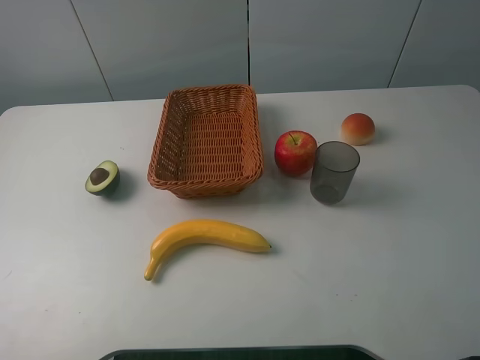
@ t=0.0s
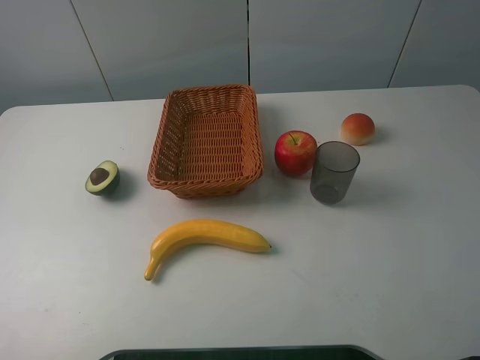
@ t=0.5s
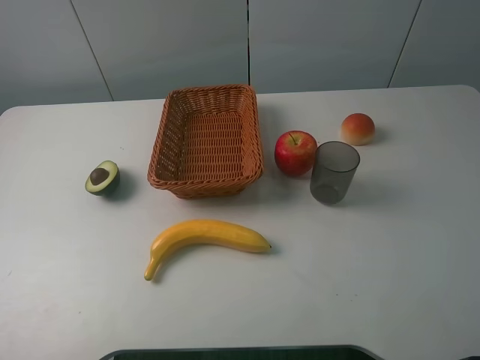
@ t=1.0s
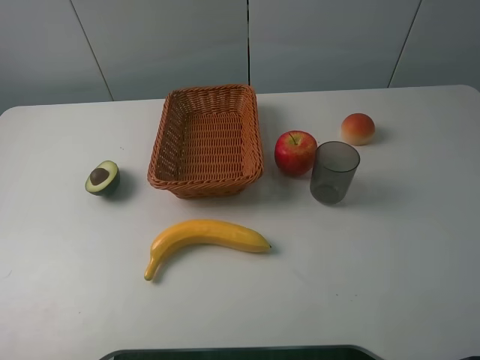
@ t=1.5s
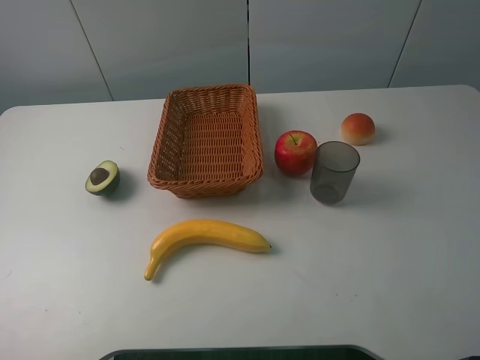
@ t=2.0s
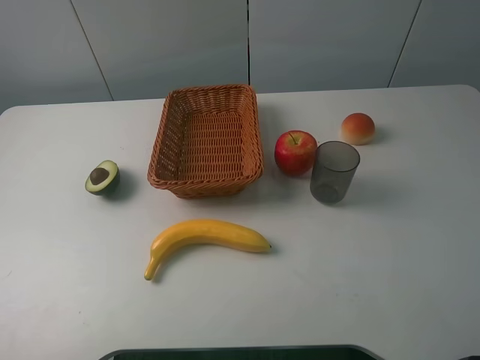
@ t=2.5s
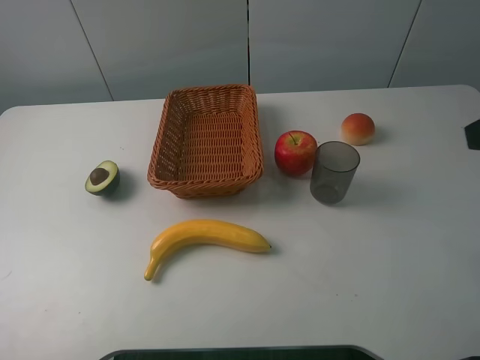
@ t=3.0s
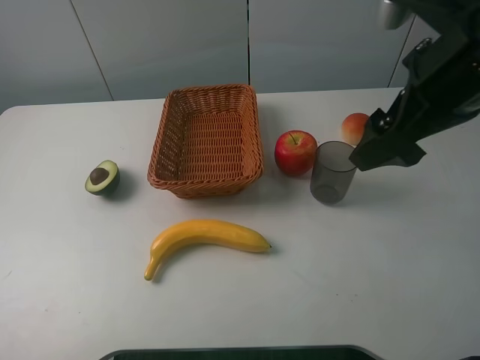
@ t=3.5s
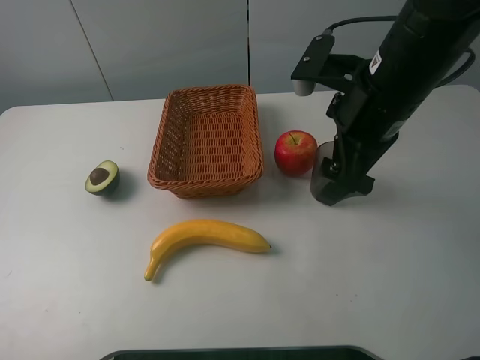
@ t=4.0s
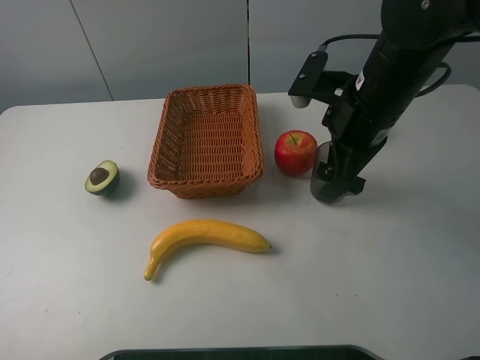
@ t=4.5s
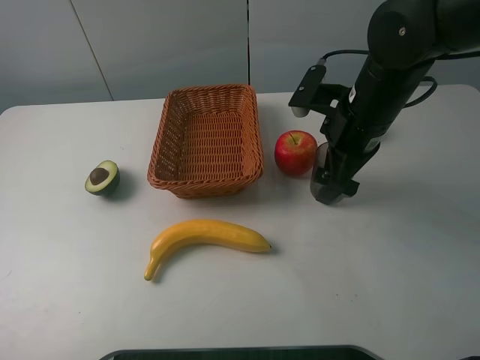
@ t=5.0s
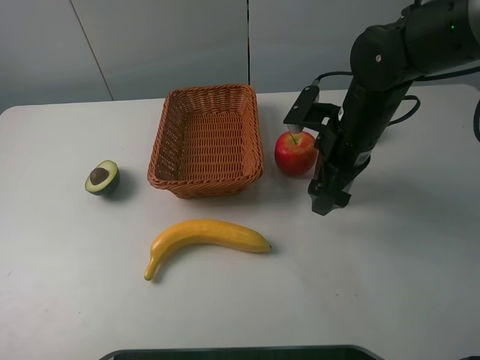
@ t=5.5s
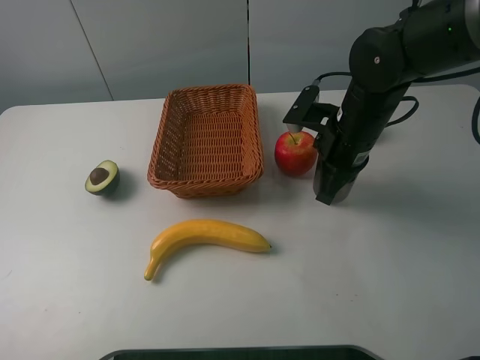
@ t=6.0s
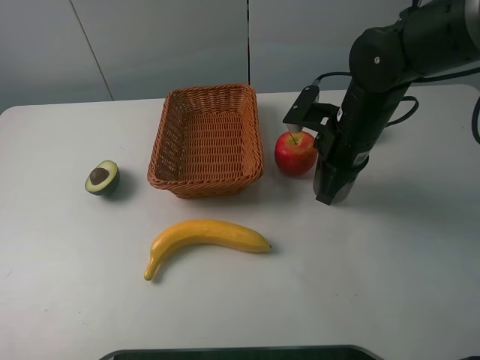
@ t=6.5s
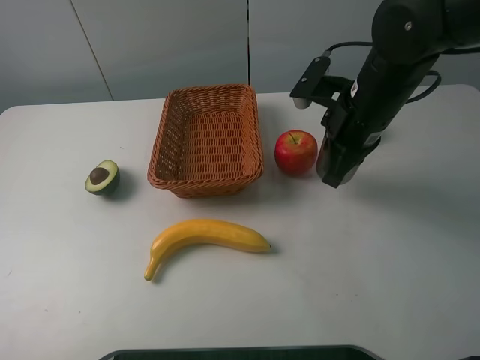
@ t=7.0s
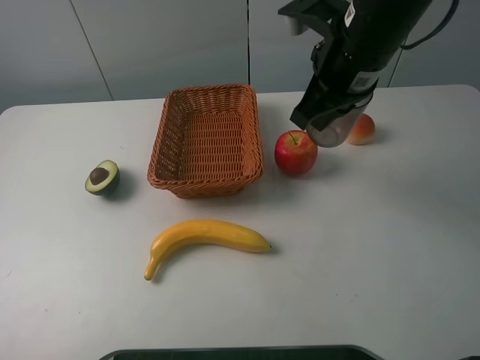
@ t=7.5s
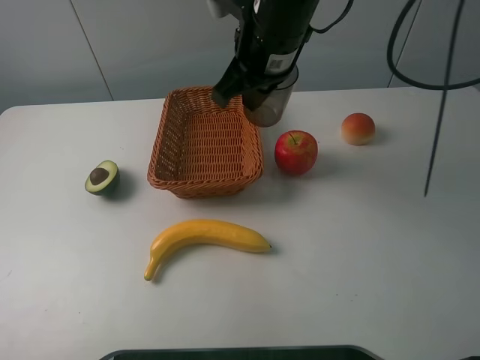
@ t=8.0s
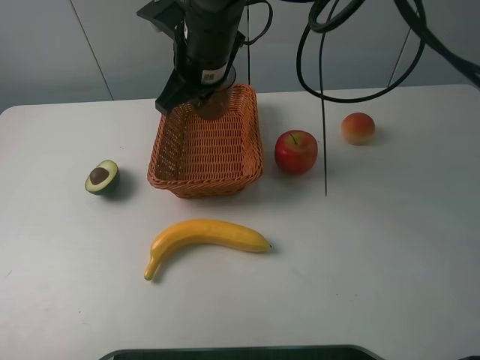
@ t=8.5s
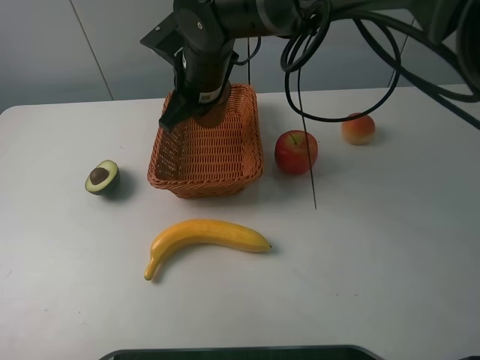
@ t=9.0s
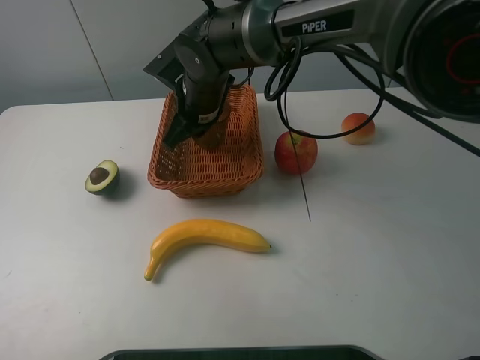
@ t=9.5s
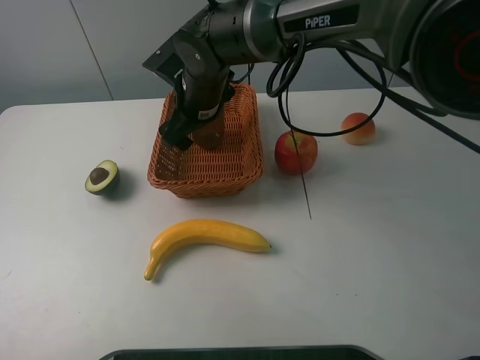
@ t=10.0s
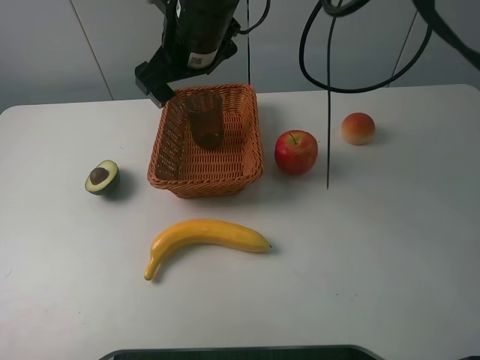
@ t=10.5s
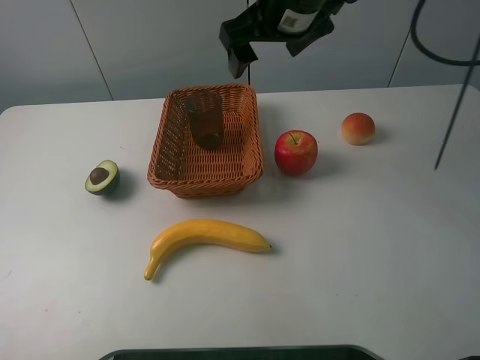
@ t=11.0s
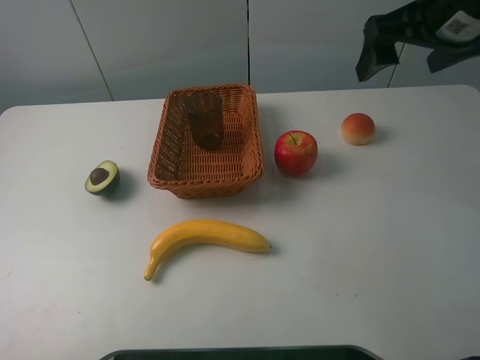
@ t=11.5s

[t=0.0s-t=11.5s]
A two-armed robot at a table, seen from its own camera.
t=0.0s to t=2.0s: The two grippers keep their place.
t=2.0s to t=4.0s: The right gripper goes some 30 cm forward and to the left.
t=4.0s to t=6.0s: The right gripper goes about 10 cm downward, and closes up.
t=6.0s to t=7.5s: The right gripper is displaced upward by some 10 cm.
t=7.5s to t=9.5s: The right gripper heads to the left, downward and forward, covering roughly 20 cm.
t=9.5s to t=11.5s: The right gripper heads to the right and upward, covering about 30 cm, and opens up.

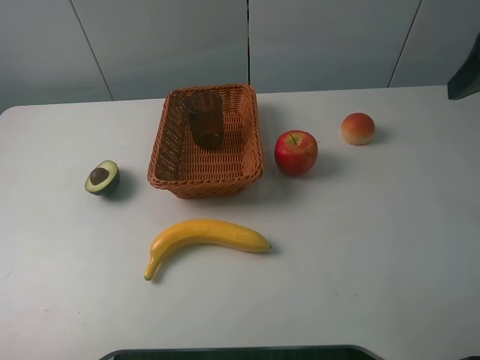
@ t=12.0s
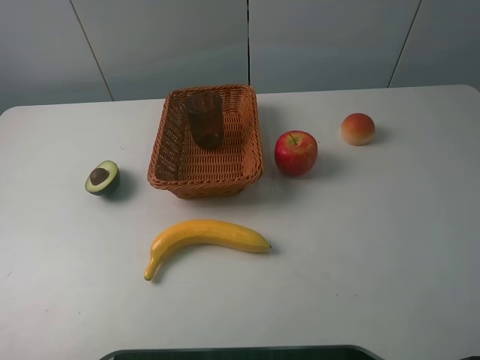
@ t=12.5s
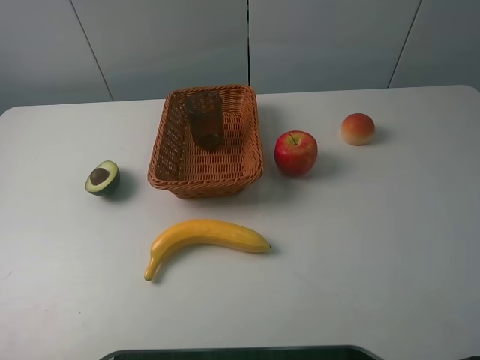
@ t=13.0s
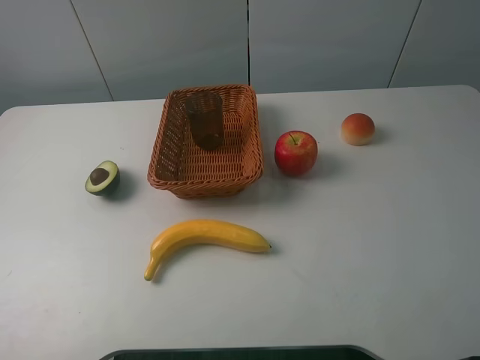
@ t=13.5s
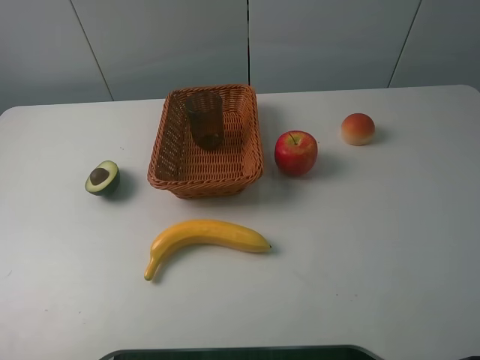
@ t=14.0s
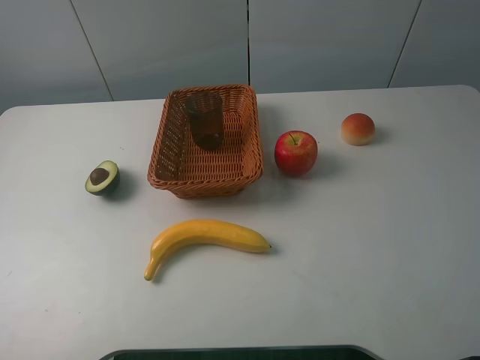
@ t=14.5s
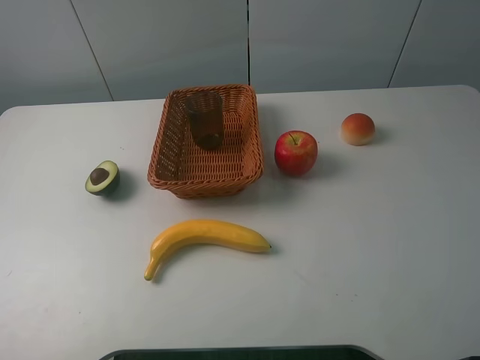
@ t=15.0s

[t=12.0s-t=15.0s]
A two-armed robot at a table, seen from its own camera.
t=12.0s to t=13.5s: The right gripper heads backward, covering about 20 cm.
t=13.5s to t=15.0s: Neither gripper changes place.
